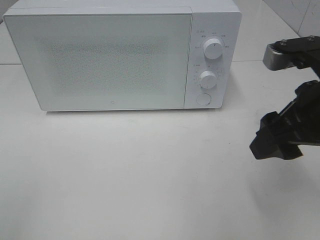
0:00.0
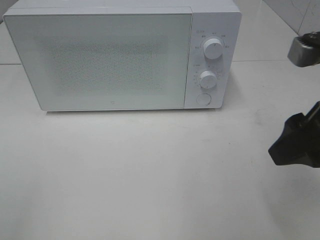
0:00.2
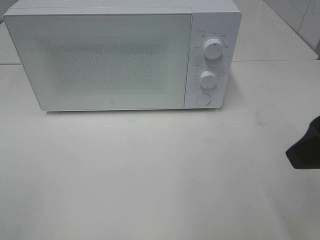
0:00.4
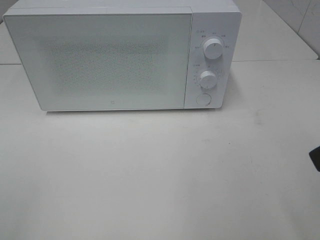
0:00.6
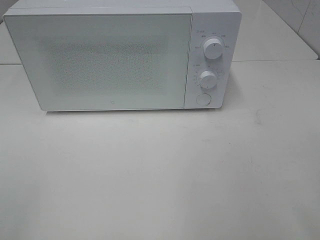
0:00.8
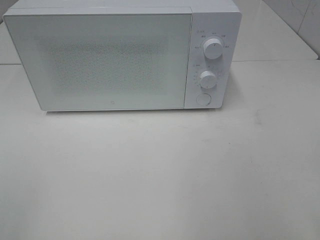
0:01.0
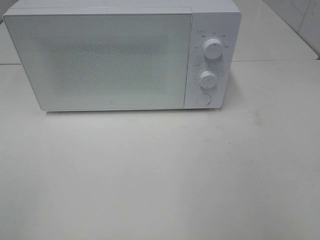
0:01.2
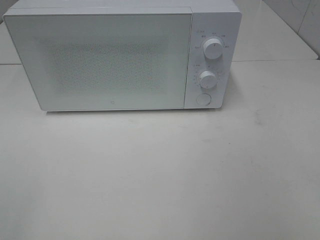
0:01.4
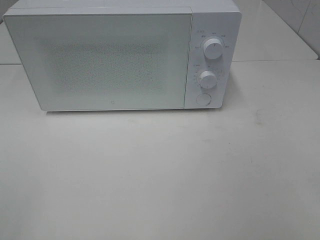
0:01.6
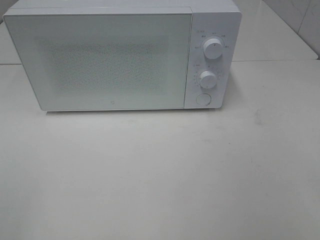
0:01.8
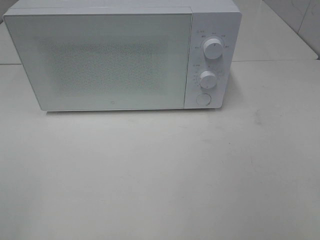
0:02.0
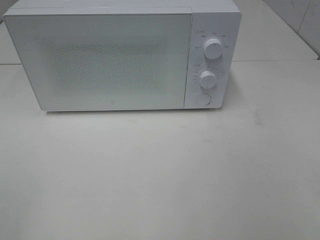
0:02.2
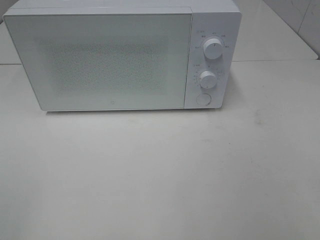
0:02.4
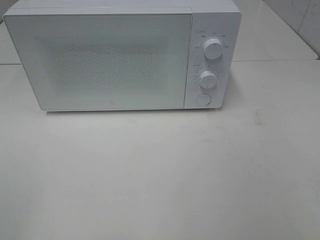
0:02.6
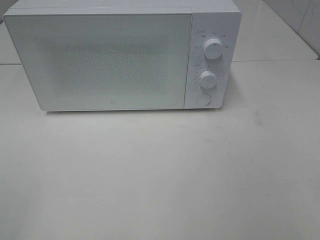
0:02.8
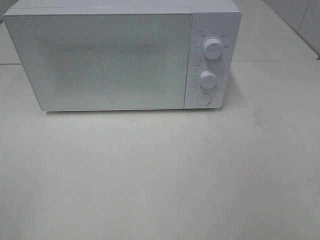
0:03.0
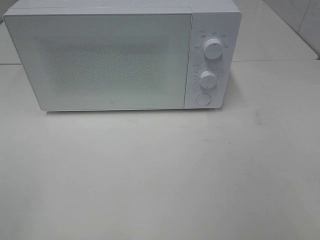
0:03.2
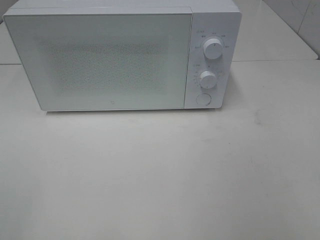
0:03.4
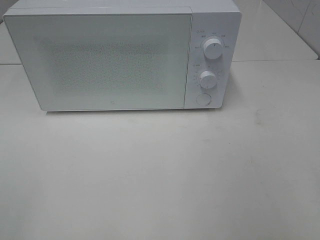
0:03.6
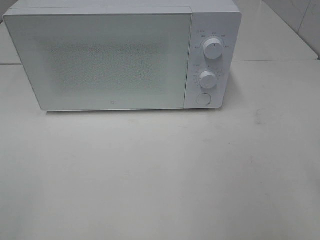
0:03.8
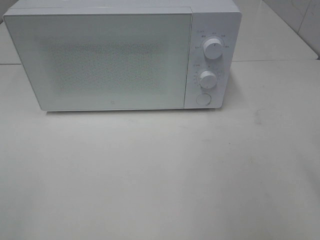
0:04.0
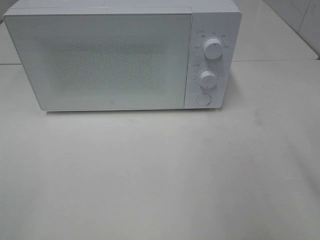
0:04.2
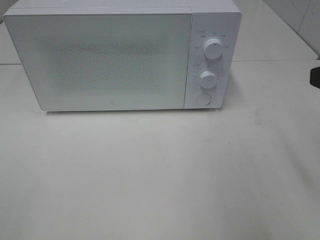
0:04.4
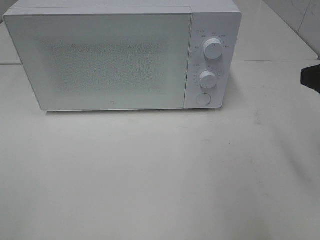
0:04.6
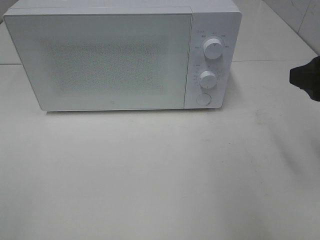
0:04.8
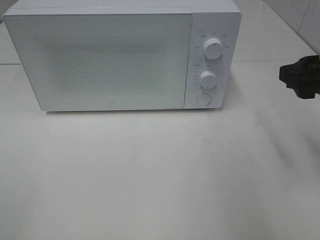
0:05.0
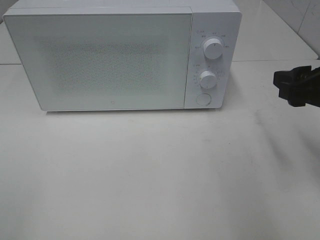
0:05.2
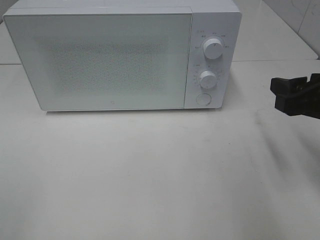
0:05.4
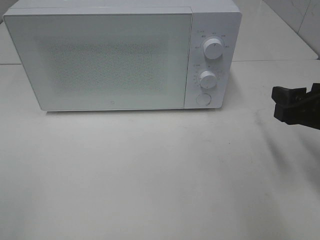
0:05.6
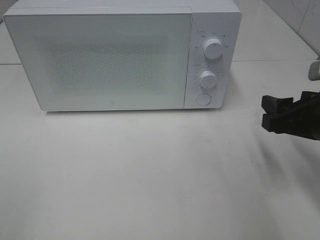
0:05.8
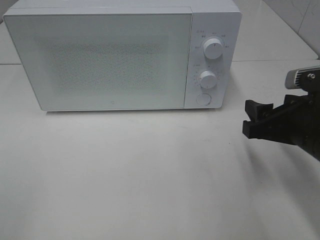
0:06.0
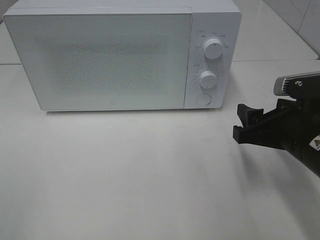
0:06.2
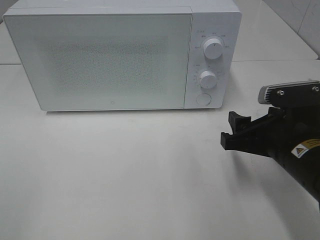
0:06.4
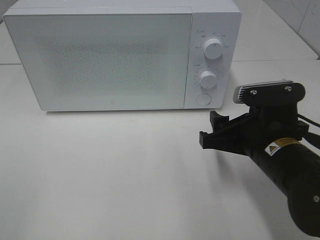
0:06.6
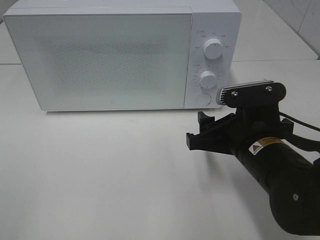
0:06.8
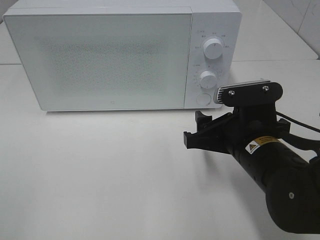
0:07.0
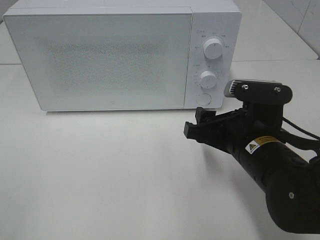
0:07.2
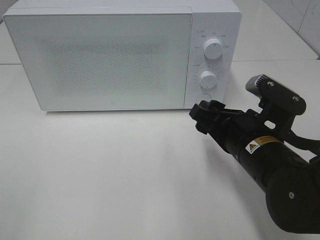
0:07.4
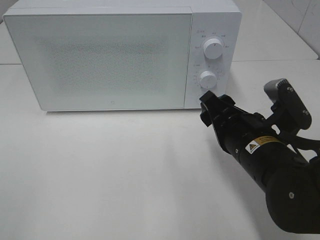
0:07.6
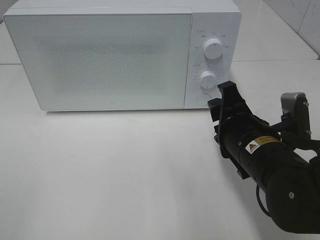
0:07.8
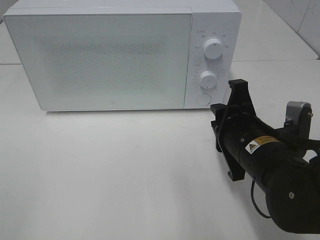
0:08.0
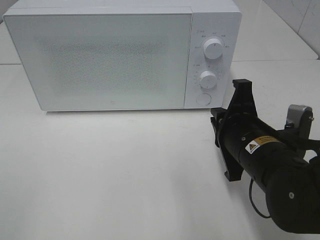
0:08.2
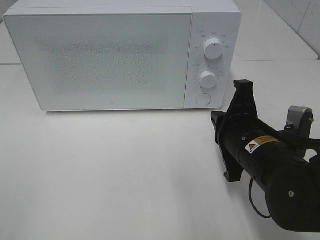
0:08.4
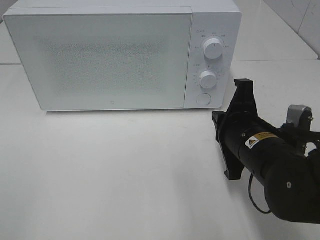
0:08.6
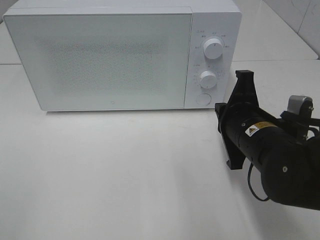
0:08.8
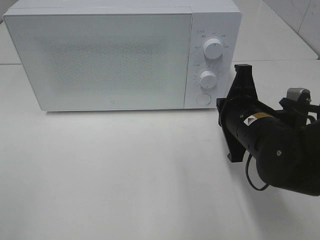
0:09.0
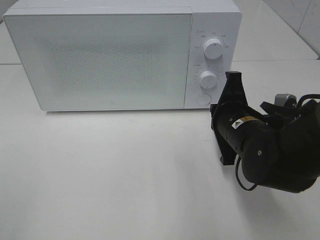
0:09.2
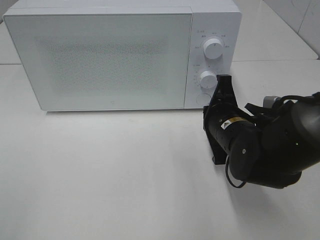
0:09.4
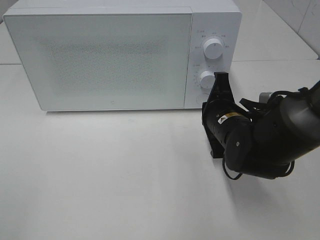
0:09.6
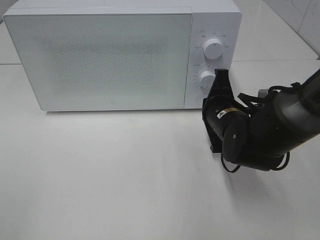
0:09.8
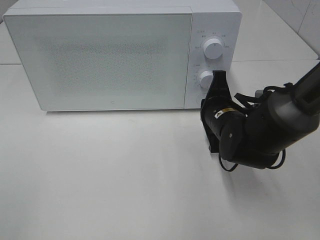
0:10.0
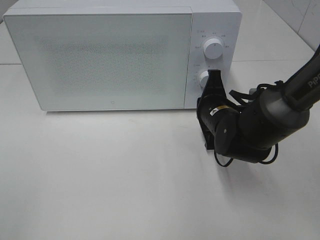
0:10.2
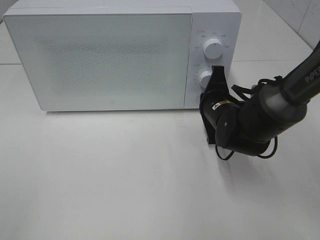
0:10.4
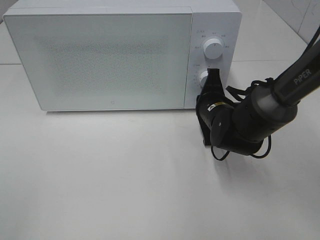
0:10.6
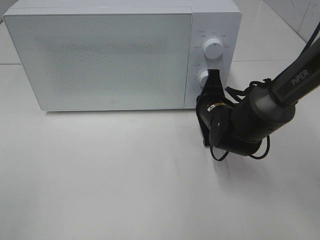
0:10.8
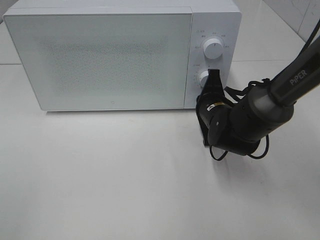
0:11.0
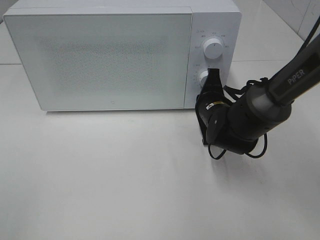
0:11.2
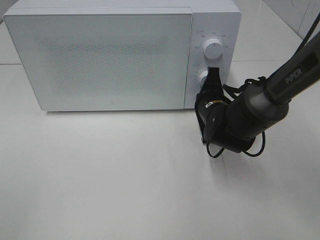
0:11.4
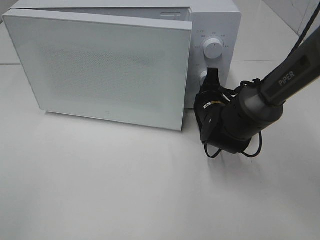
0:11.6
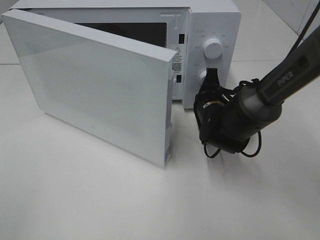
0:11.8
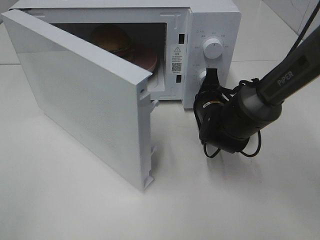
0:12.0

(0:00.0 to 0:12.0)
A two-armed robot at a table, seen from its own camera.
Task of the whole recording: Heat the burger.
0:00.0 - 0:01.6: The right gripper moves backward and to the right, approximately 20 cm.
0:04.4 - 0:06.0: The right gripper goes roughly 10 cm downward.
0:06.0 - 0:07.6: The right gripper shifts approximately 10 cm to the left.
0:07.6 - 0:09.0: The right gripper closes its fingers.
0:09.0 - 0:10.4: The right gripper travels forward and downward by approximately 10 cm.

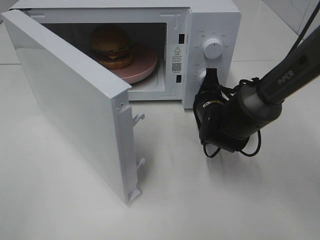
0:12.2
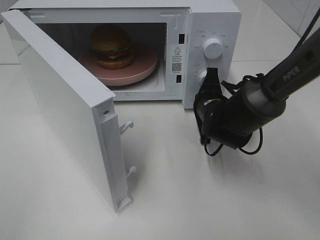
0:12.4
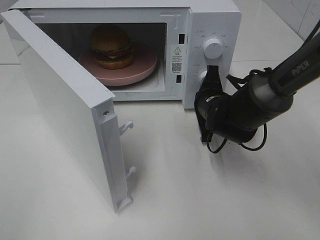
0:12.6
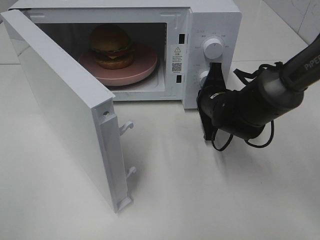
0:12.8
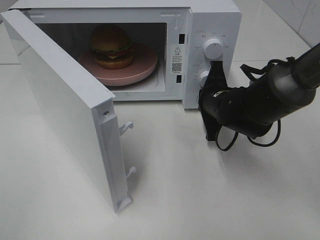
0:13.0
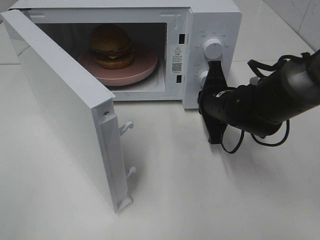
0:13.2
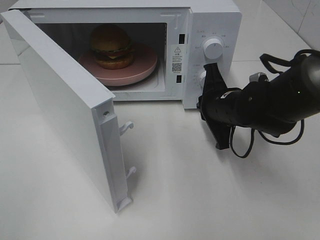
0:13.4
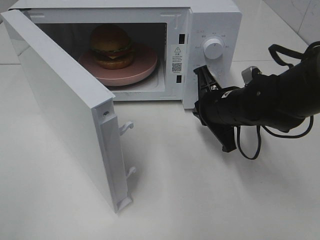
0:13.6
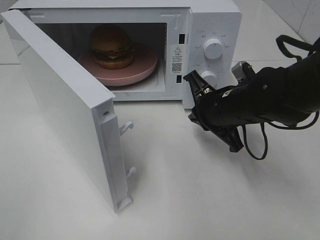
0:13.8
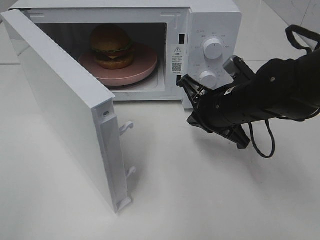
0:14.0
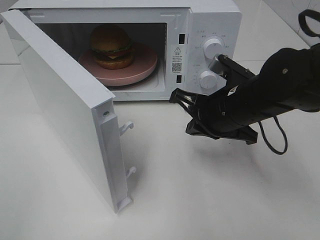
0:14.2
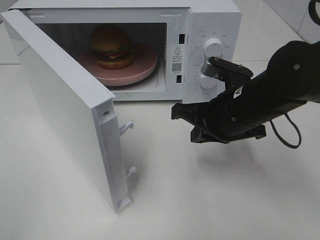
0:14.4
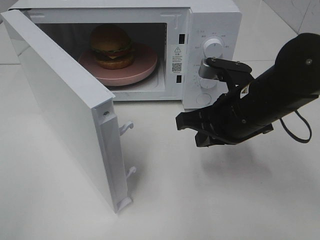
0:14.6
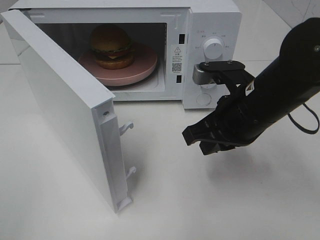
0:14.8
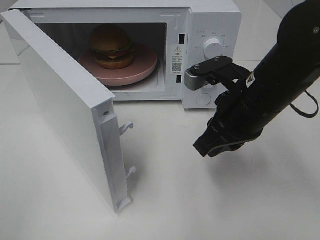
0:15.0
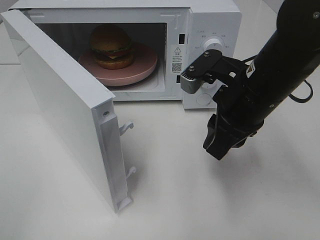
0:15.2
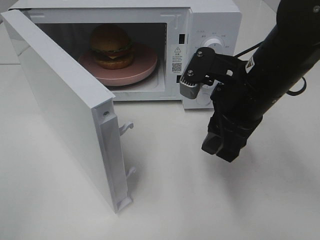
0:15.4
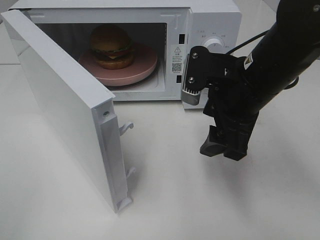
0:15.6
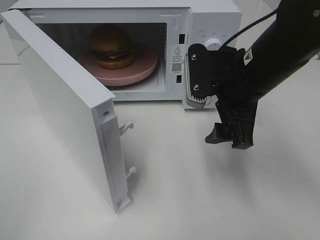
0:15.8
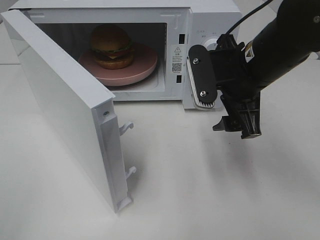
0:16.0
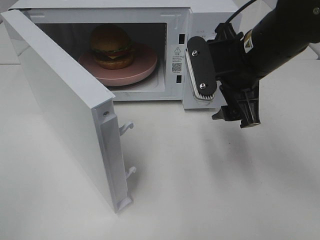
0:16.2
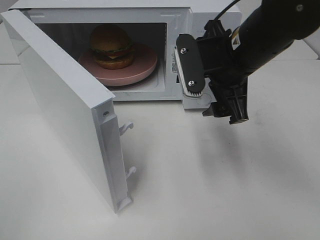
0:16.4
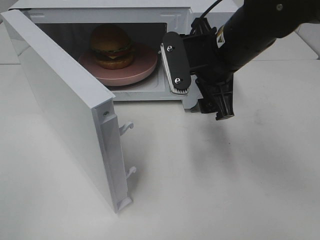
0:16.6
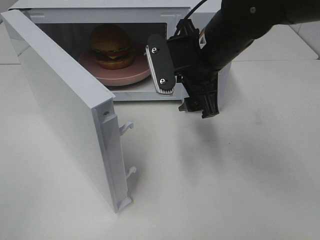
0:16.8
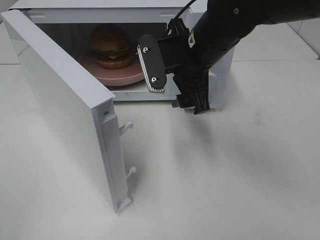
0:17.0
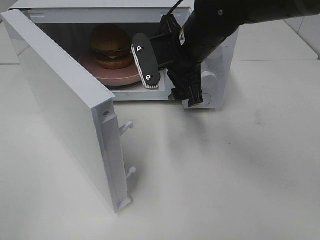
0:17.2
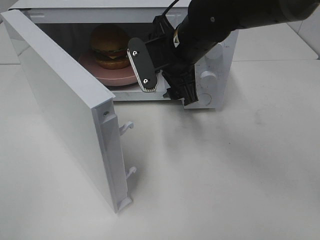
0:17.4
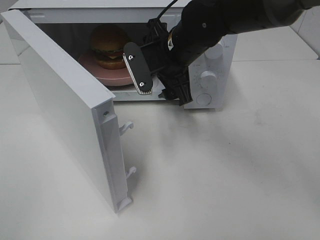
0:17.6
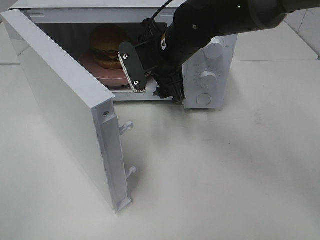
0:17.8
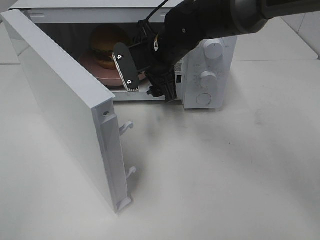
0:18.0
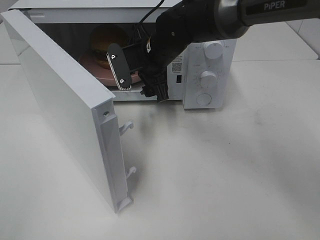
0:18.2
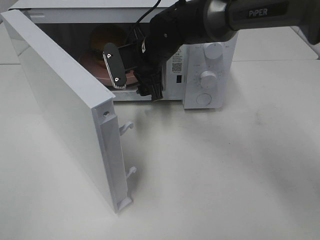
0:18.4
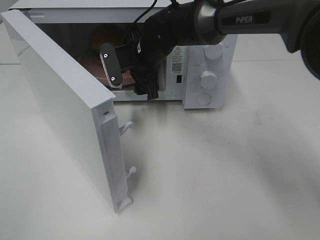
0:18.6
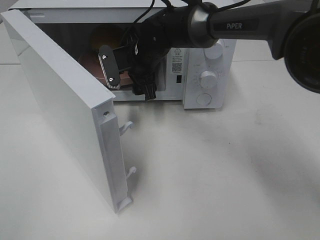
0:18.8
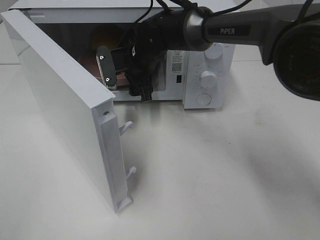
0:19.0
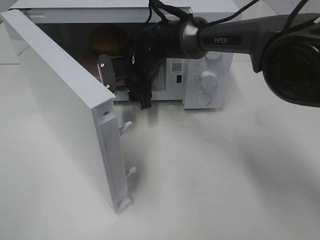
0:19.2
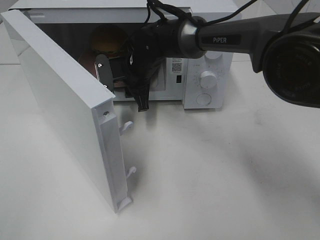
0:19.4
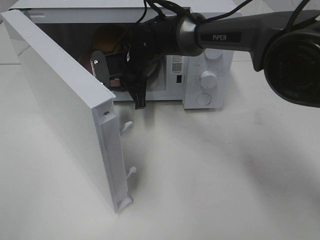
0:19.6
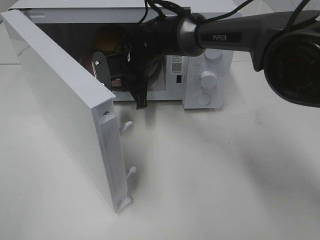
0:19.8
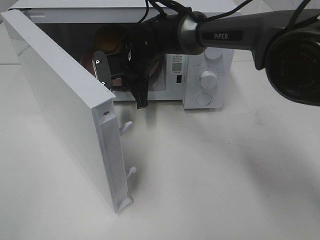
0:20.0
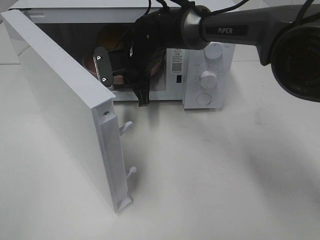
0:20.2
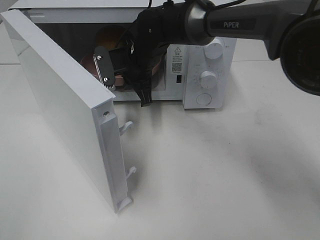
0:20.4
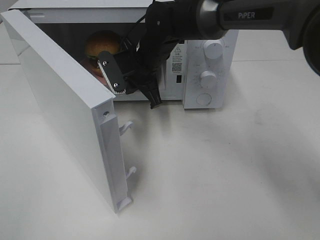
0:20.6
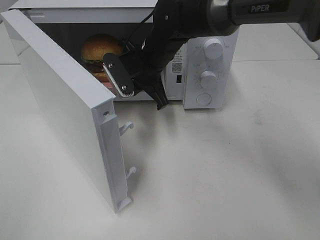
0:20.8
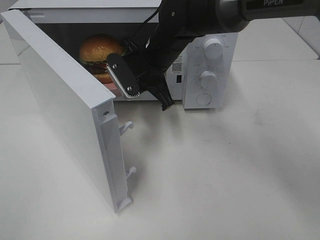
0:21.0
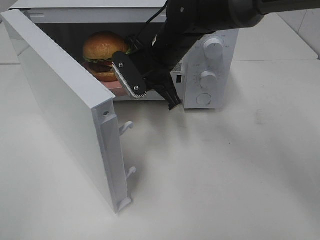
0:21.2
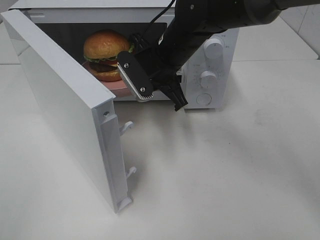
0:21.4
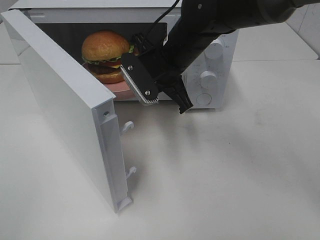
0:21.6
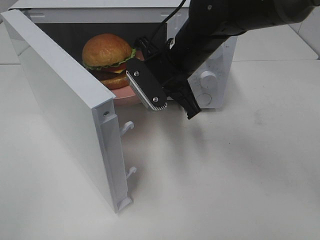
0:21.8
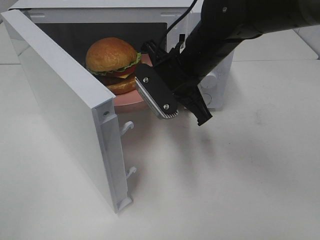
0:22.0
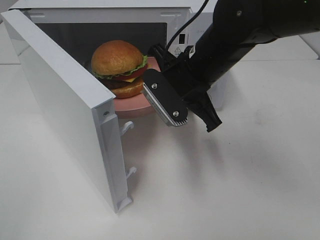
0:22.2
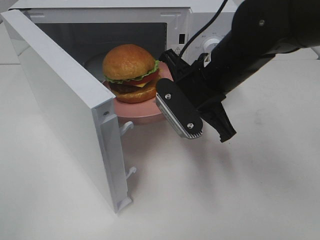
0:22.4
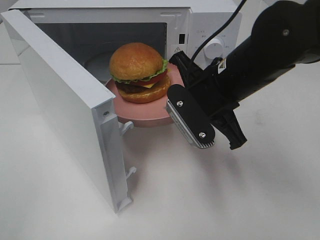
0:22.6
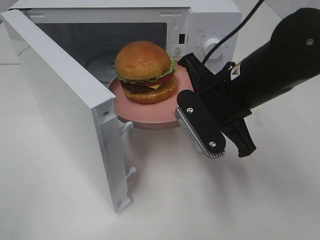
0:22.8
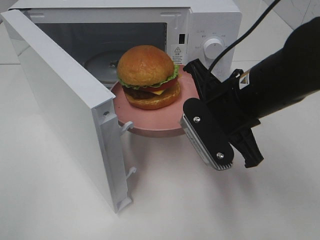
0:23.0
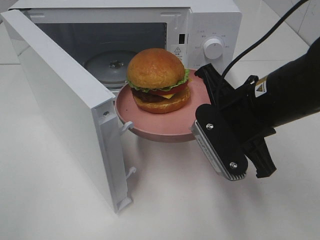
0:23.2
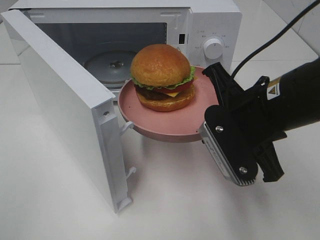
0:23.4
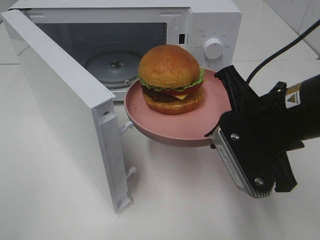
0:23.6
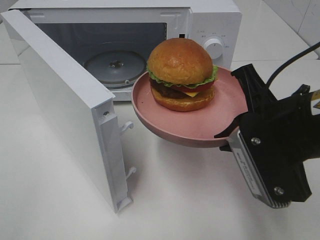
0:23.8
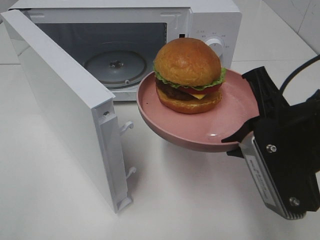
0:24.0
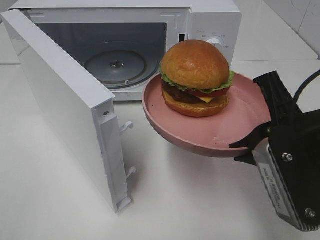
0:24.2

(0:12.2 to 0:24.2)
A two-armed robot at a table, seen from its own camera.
Task of the whole recording: Heat the burger.
Step, 0:13.2 - 0:19.6: Right hand: grab the plate with the hamburger.
0:12.2 - 0:13.8: The right gripper is displaced upward and backward by about 10 cm.
0:13.8 - 0:15.2: The right gripper moves upward, about 5 cm, and opens its fingers.
0:15.2 - 0:16.6: The right gripper shifts about 5 cm forward, and opens.
0:16.6 - 0:18.2: The right gripper moves forward, to the left and downward, roughly 15 cm.
0:18.2 - 0:19.8: The right gripper changes place by approximately 5 cm, and closes its fingers.
0:19.8 - 0:21.2: The right gripper moves backward and upward, about 5 cm.
0:21.2 - 0:22.6: The right gripper heads backward and to the right, covering roughly 15 cm.
0:22.6 - 0:24.2: The right gripper is displaced backward and to the right by some 15 cm.
